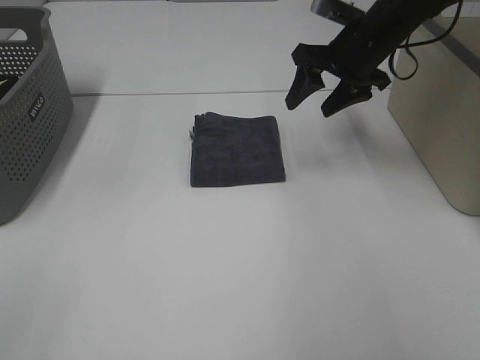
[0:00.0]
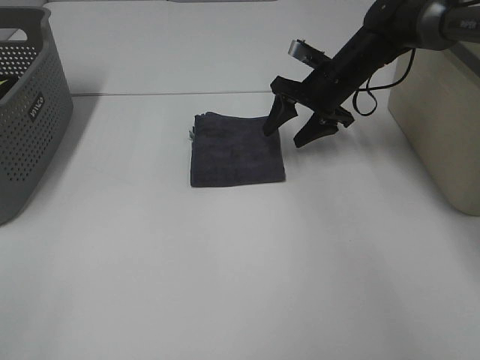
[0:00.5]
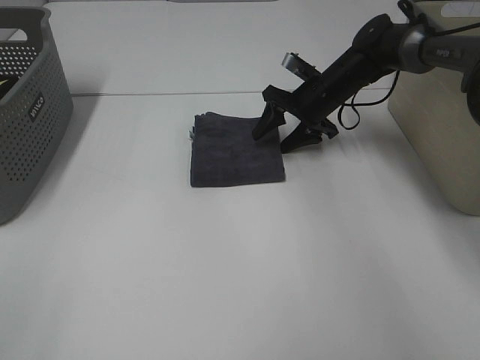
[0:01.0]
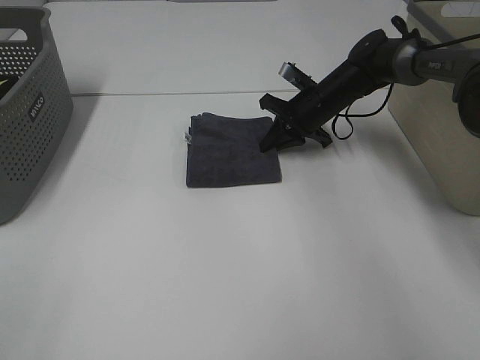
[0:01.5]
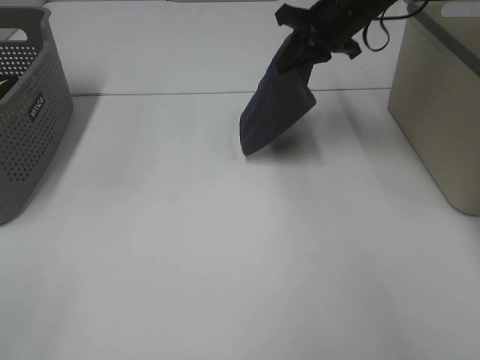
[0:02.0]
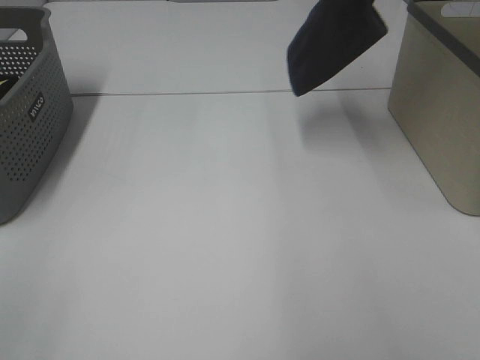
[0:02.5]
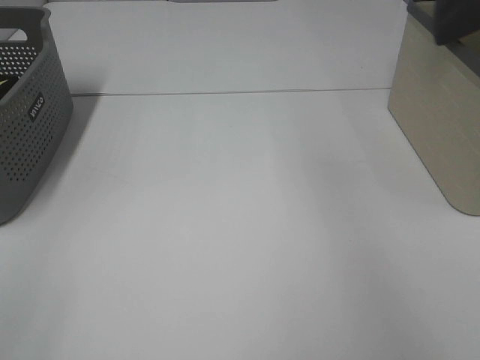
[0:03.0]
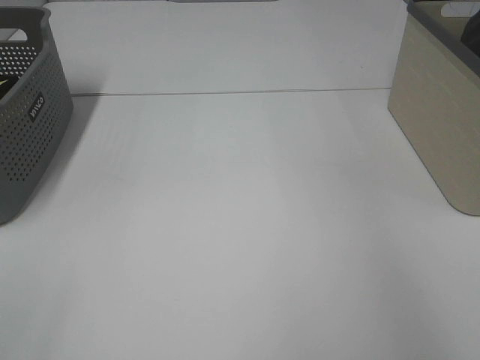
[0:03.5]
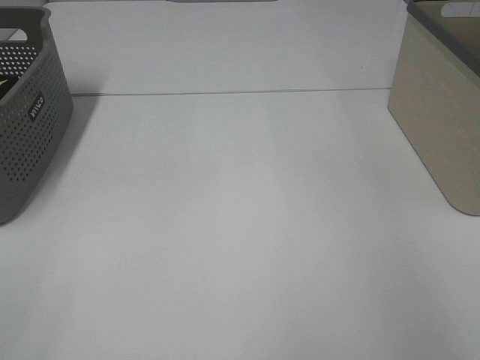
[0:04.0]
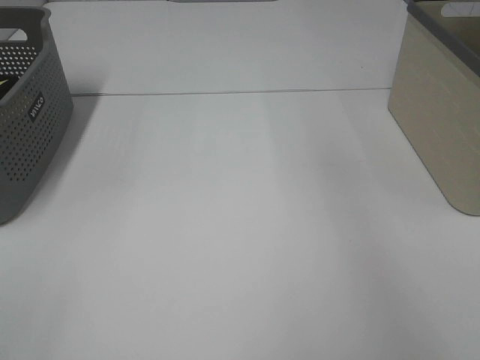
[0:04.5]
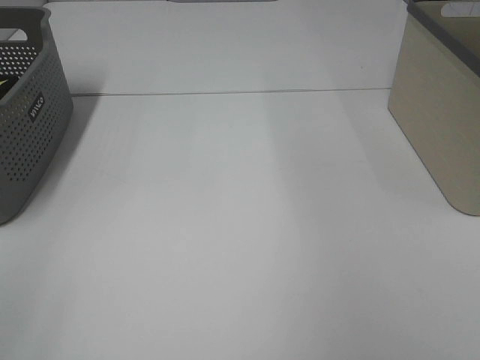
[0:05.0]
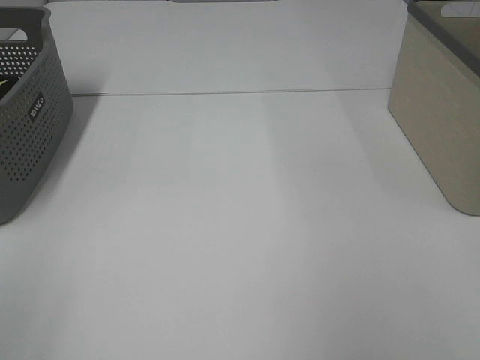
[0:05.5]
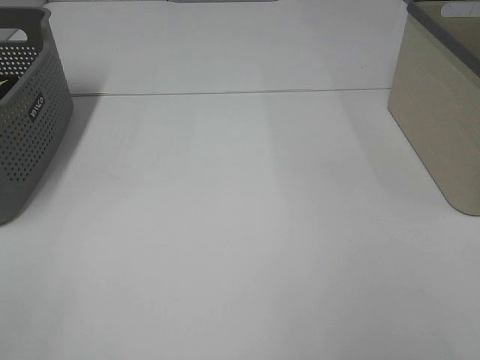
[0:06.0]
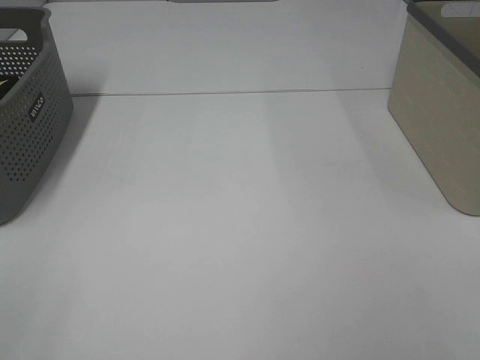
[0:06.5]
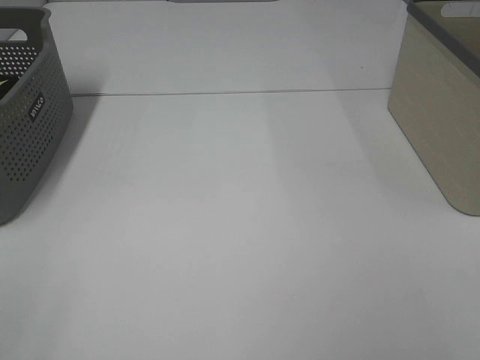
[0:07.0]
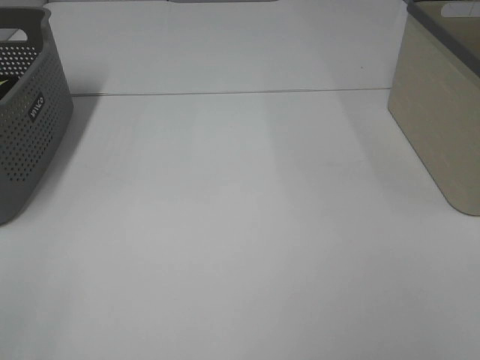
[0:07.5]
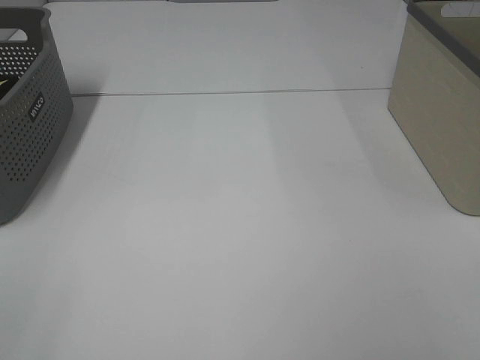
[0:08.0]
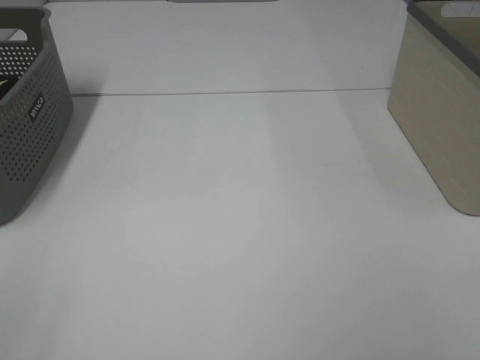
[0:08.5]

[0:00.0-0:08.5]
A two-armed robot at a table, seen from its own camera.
Step, 0:01.5 to 0:04.0: Right hand: place the grey towel in right basket.
0:00.0 to 0:02.0: The right gripper moves some 10 cm downward and comes back, and closes its fingers.
0:02.0 to 0:04.0: The right gripper moves to the right, roughly 25 cm, and opens.

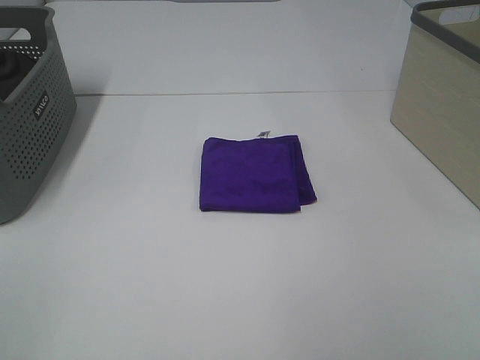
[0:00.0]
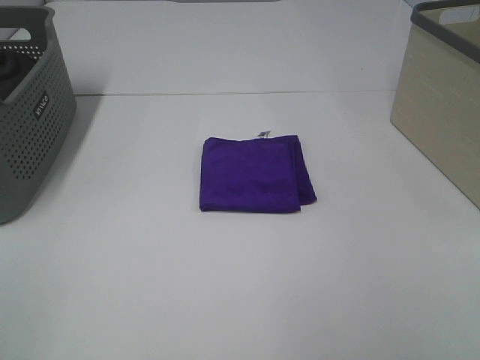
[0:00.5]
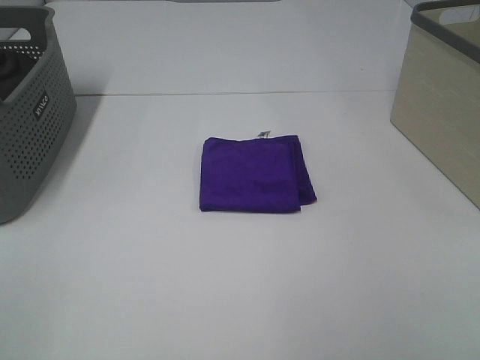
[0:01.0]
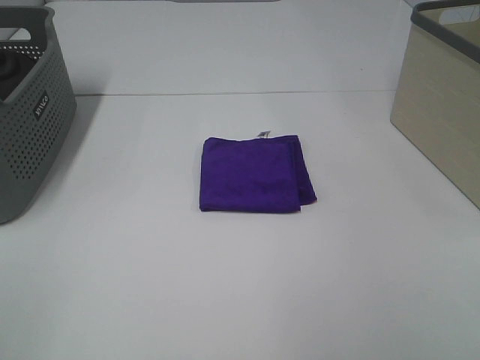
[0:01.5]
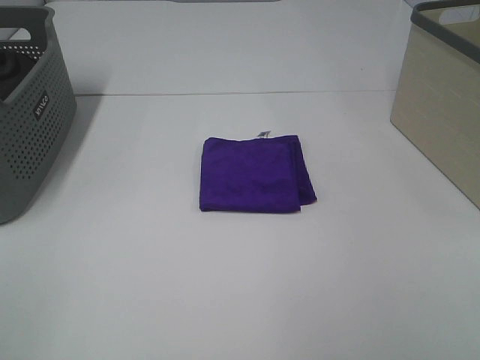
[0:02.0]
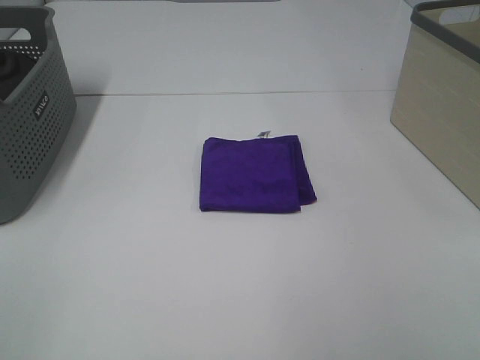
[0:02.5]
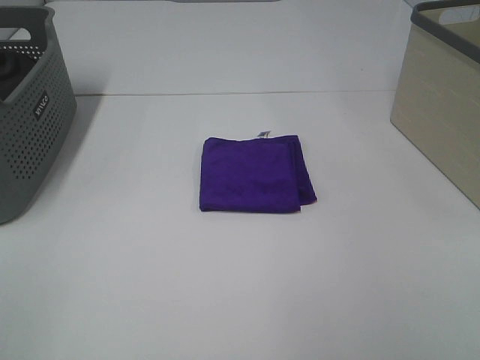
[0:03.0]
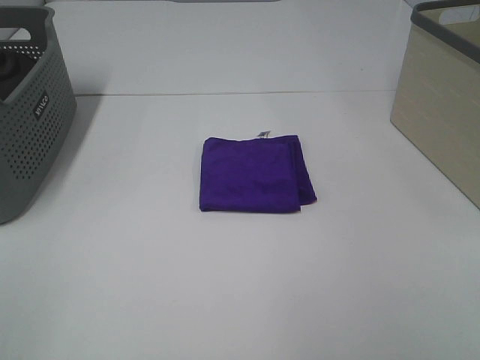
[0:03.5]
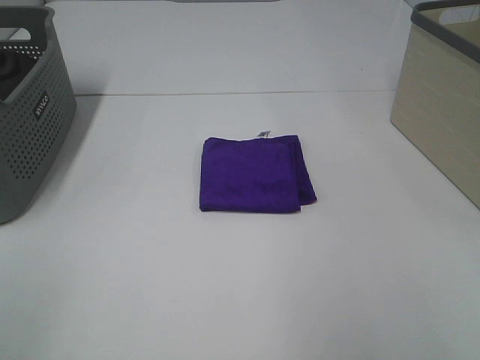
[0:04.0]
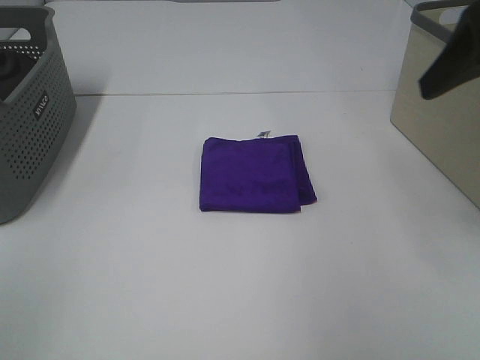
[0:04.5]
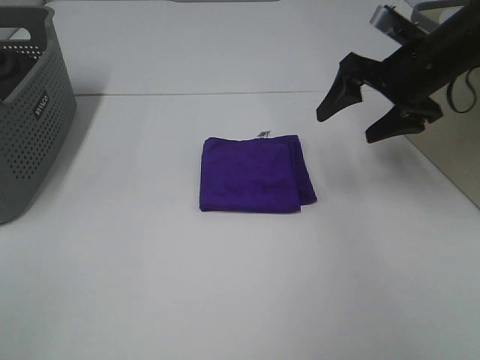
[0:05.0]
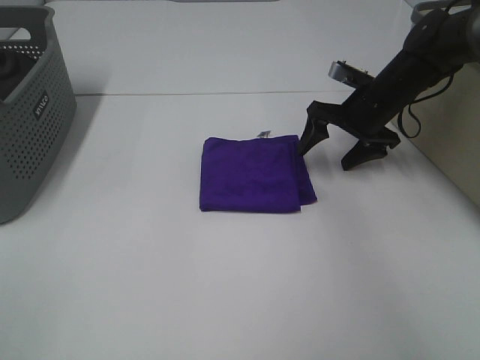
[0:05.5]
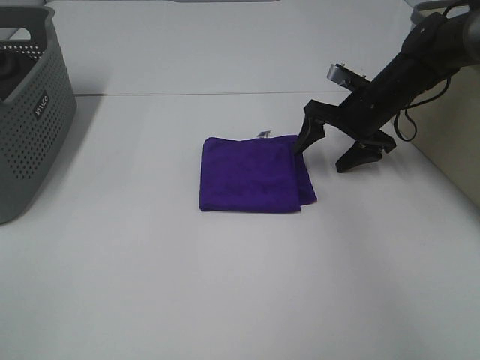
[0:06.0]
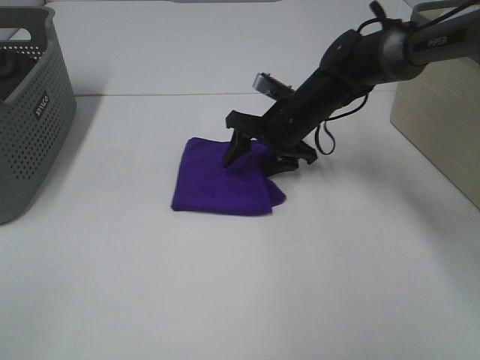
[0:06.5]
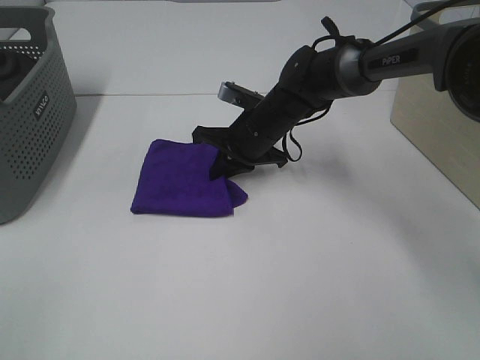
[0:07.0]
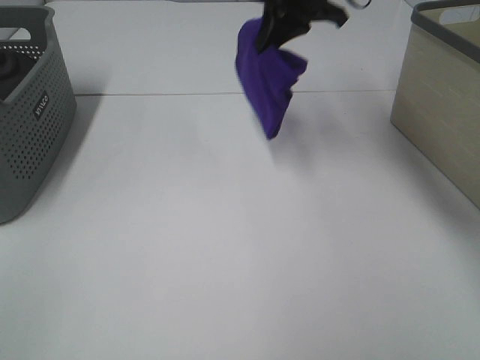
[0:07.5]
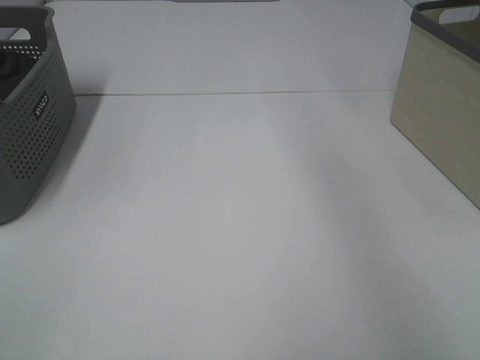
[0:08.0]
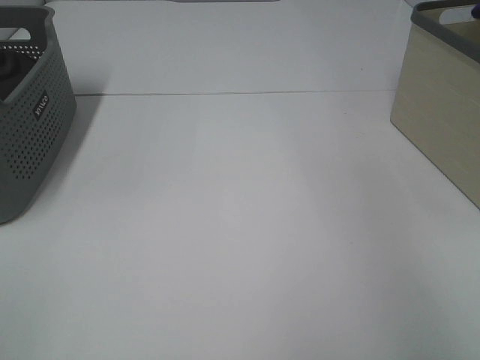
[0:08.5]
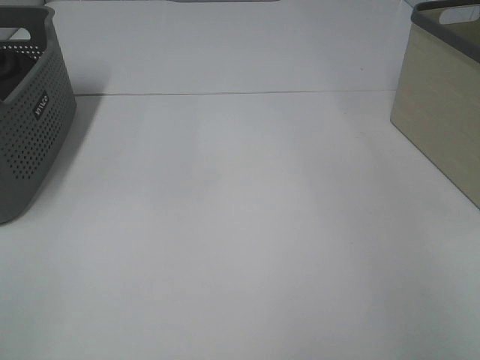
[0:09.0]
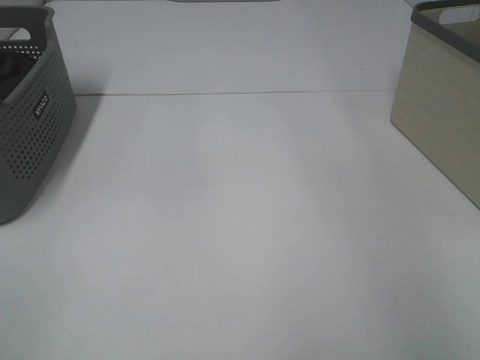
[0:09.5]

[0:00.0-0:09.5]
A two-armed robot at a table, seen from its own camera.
Step, 0:00.0 to 0:07.0: Right hand: grab the folded purple towel.
Step, 0:07.5 to 0:09.0: Right hand: place the purple towel in right basket.
0:00.0 to 0:02.0: Neither gripper changes place.
0:04.0 to 0:05.5: The right gripper goes roughly 40 cm forward and downward.
0:05.5 to 0:07.5: The right gripper is displaced upward and to the left by roughly 20 cm, and closes its fingers.
0:07.5 to 0:09.5: The right gripper is displaced to the right by approximately 30 cm, and opens its fingers.

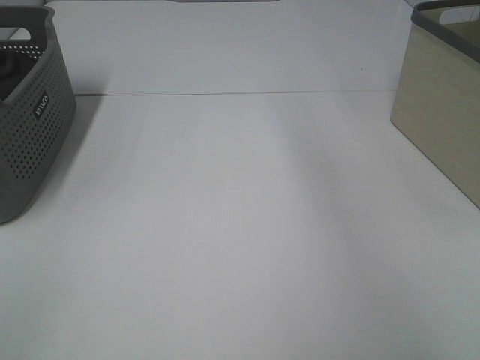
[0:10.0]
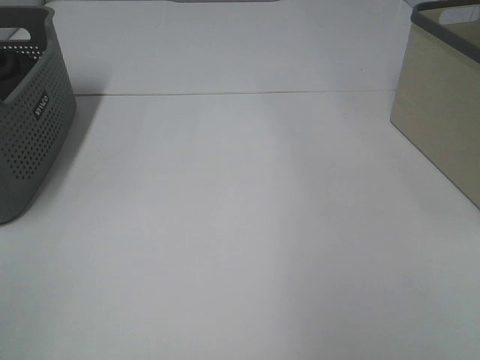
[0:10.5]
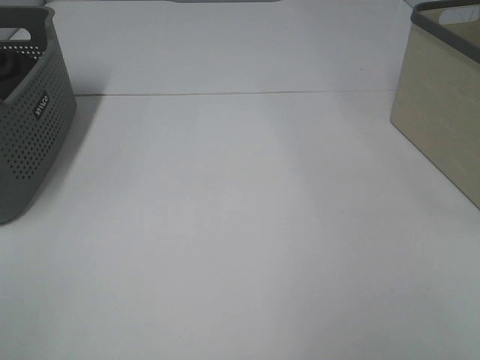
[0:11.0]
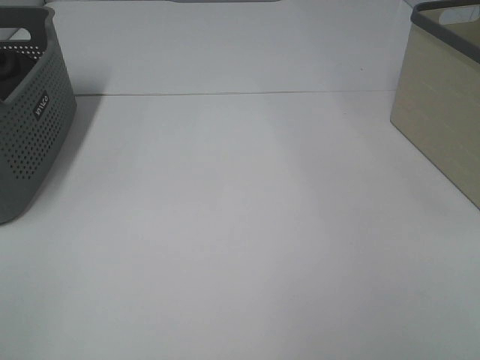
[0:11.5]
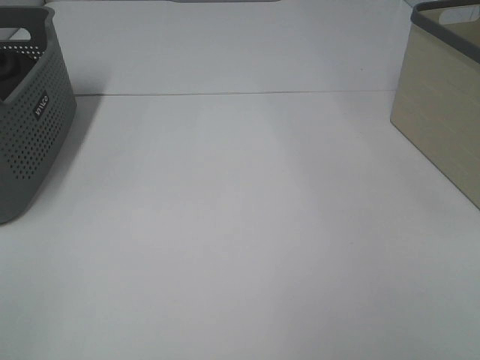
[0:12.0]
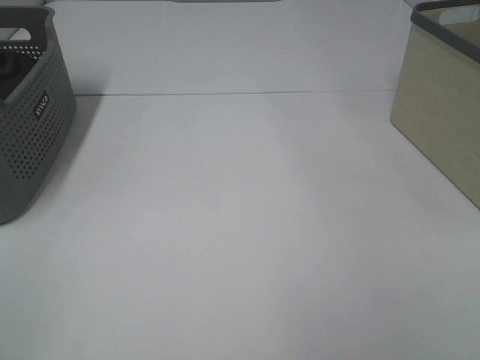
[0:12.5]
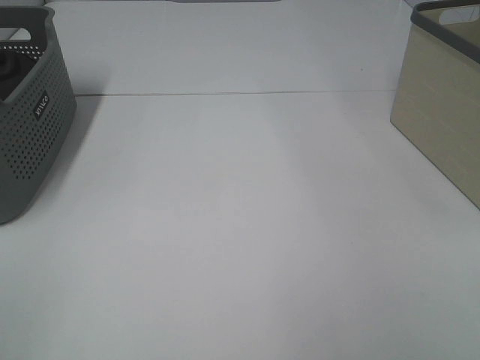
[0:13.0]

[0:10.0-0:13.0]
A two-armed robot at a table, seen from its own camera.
0:11.5 to 0:13.0: Both grippers stay put.
